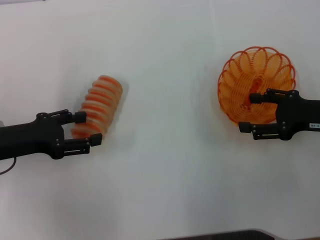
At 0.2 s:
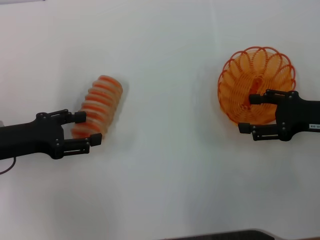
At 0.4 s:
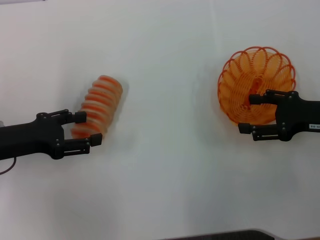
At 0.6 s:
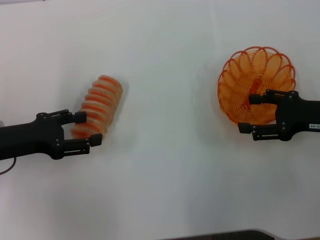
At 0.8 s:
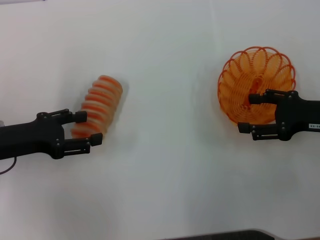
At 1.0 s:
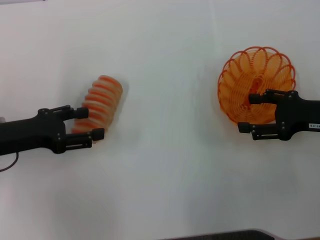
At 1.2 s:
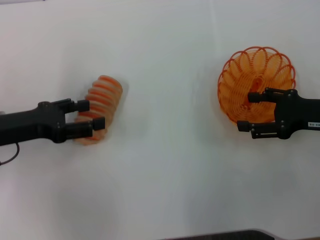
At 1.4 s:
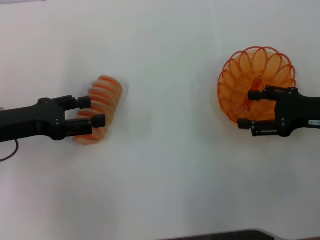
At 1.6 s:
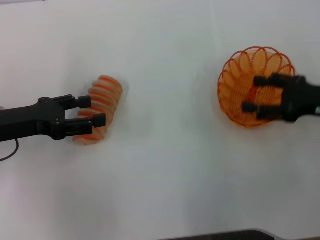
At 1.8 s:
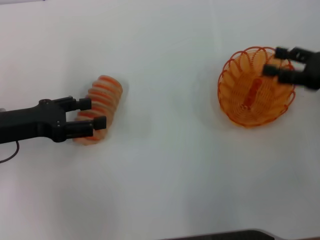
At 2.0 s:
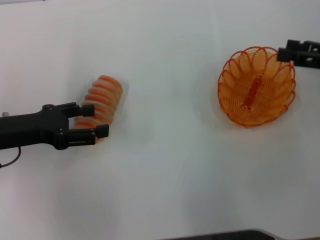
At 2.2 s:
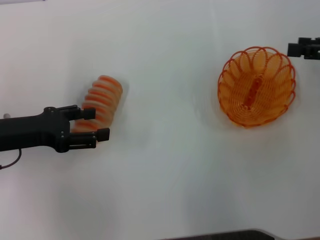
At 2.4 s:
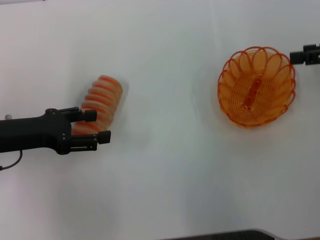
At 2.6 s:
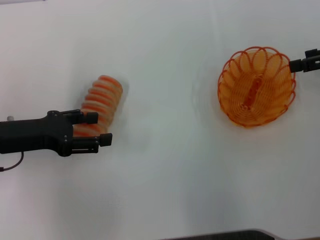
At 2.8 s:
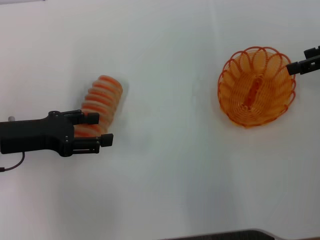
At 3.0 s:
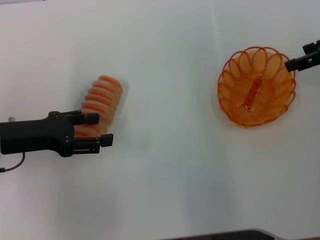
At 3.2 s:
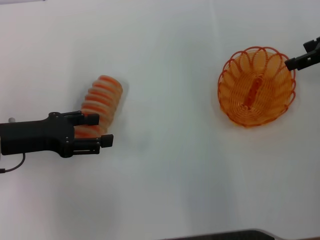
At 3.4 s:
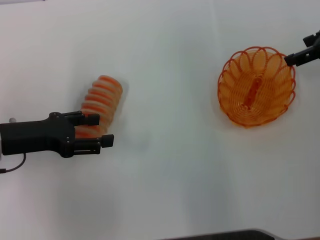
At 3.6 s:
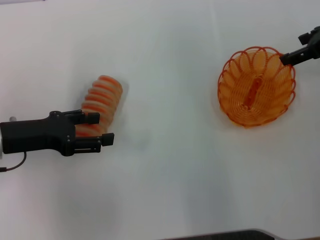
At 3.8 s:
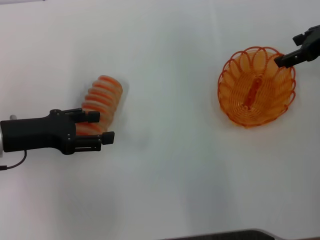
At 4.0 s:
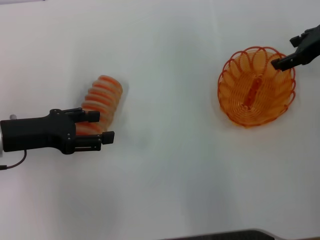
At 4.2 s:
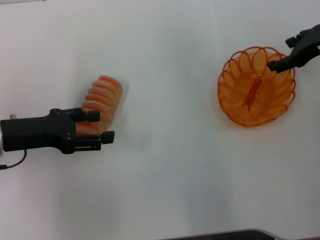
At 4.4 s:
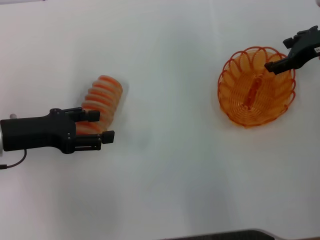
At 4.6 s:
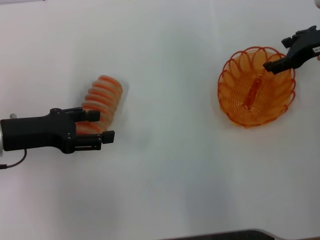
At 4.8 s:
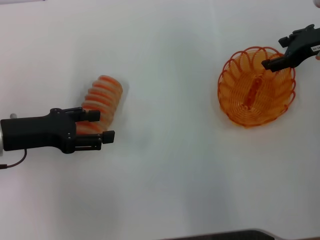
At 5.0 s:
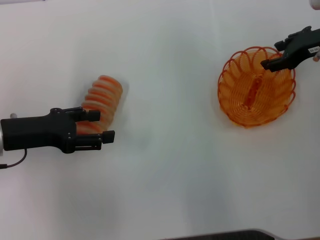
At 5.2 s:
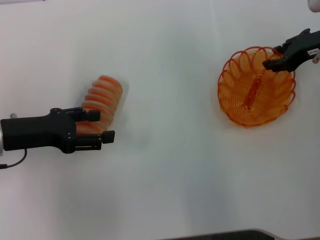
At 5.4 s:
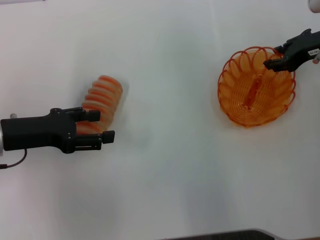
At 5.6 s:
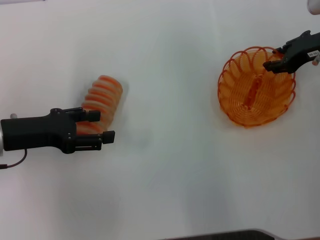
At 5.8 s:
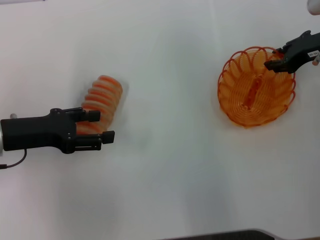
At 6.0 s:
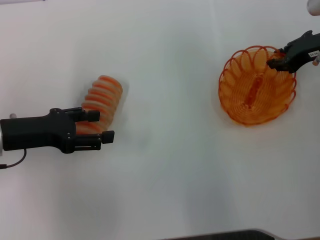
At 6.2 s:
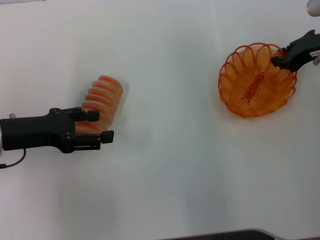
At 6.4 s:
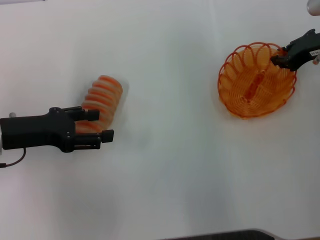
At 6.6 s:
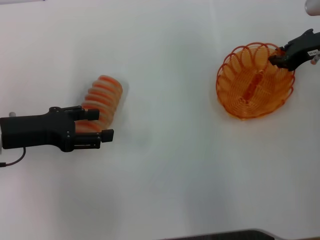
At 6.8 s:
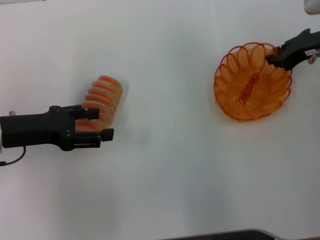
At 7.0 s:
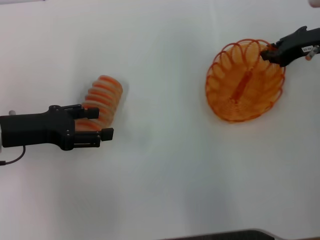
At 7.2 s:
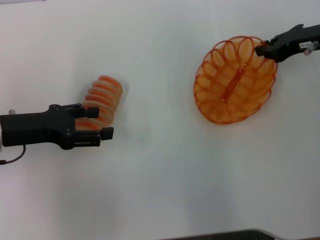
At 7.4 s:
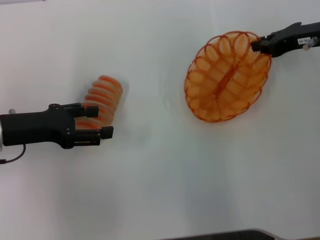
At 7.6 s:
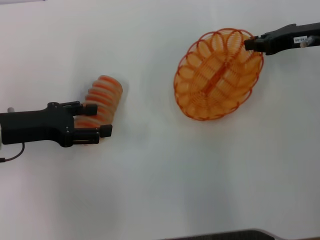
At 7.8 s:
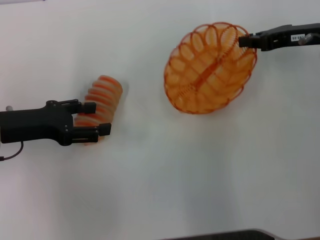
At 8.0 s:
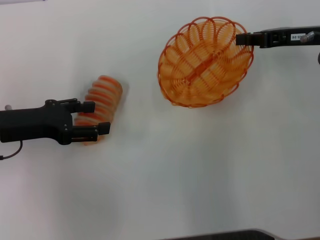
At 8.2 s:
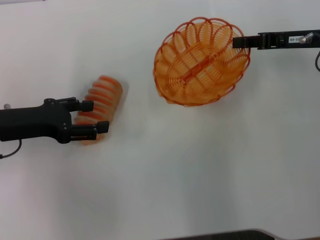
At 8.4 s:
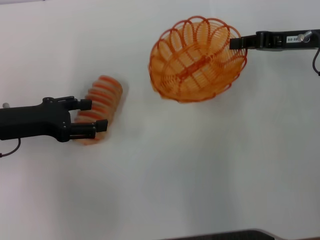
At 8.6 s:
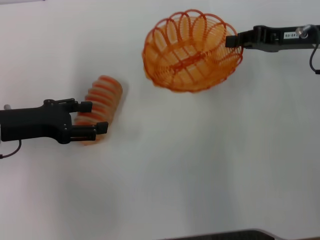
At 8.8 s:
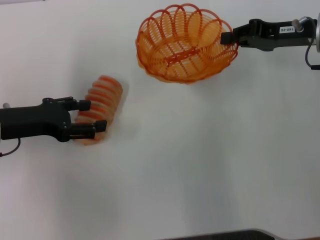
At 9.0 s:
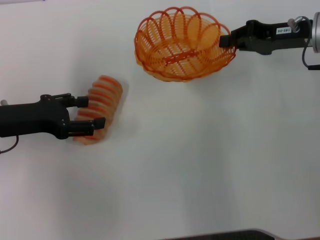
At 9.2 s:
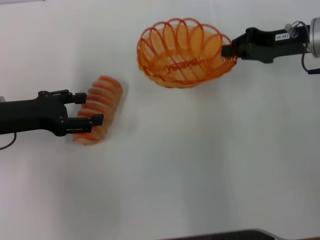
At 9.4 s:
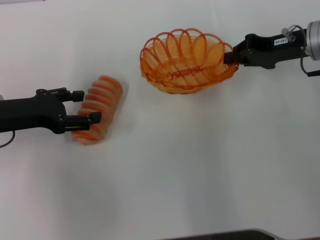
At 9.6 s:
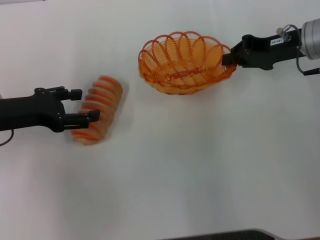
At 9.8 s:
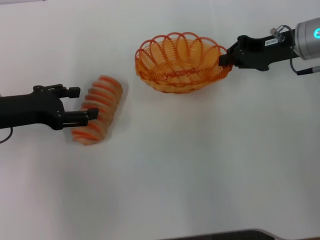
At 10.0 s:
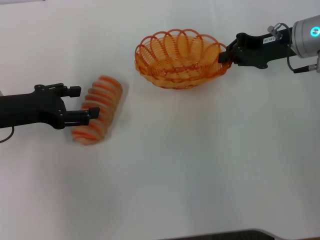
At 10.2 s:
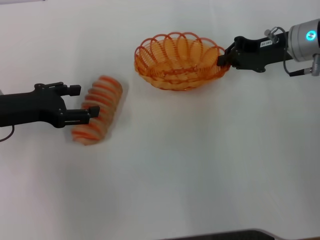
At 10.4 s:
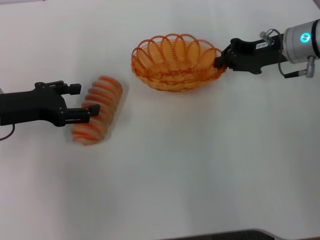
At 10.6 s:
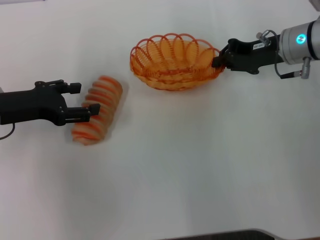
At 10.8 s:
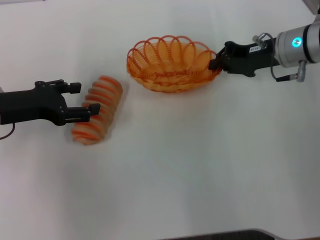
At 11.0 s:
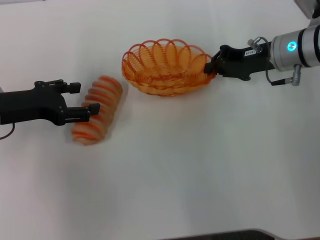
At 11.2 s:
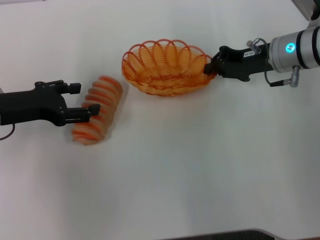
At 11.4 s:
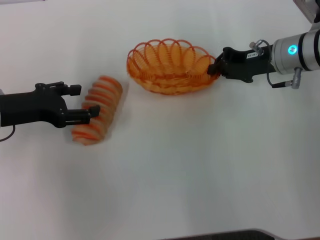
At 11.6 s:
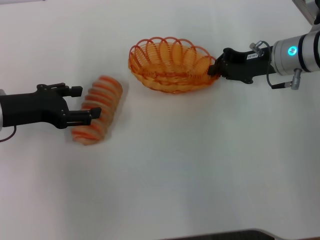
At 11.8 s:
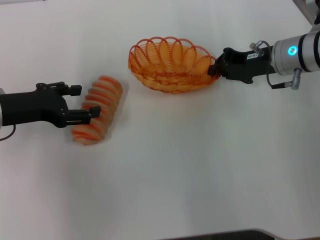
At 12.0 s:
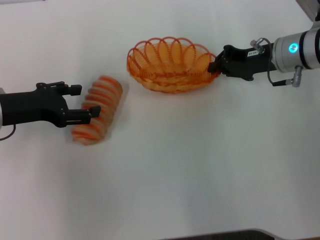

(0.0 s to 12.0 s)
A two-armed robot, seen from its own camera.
Step, 0.0 s - 7.0 s: Pick up the basket with the right gripper.
0.0 s - 1.6 s: The grippers move only a little.
1.6 s - 3.0 s: The right gripper is displaced upward and forward by about 15 cm.
3.0 s - 4.4 s: The right gripper ends up some 5 cm from where it was.
4.4 s - 6.0 s: The right gripper closes up.
6.0 s - 7.6 s: The right gripper closes up.
9.0 s - 10.4 s: The grippers move only a little.
10.4 s - 12.0 s: The grippers make only small movements.

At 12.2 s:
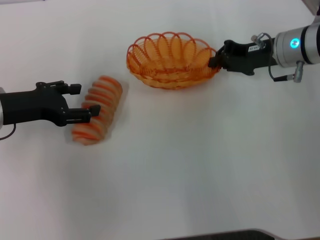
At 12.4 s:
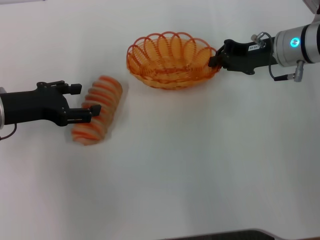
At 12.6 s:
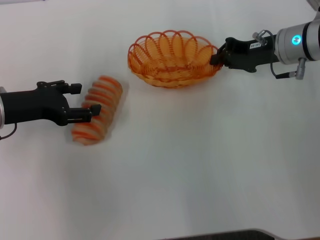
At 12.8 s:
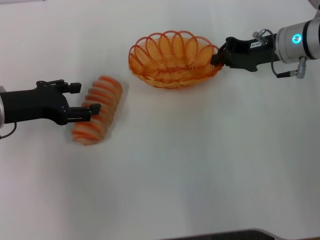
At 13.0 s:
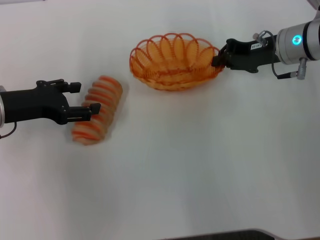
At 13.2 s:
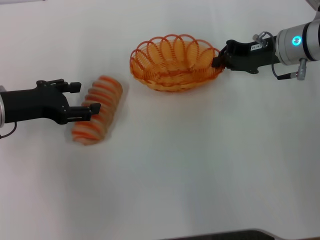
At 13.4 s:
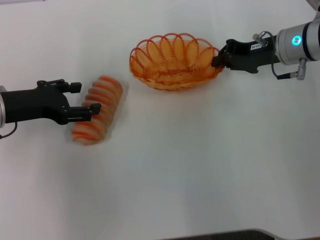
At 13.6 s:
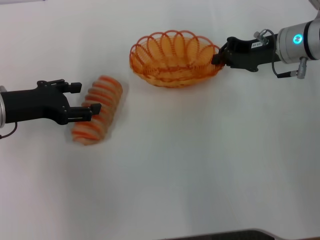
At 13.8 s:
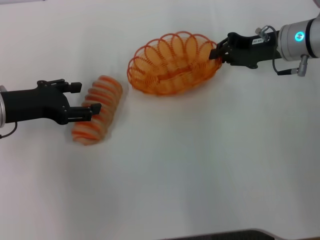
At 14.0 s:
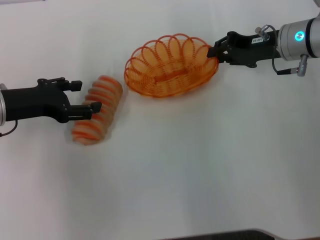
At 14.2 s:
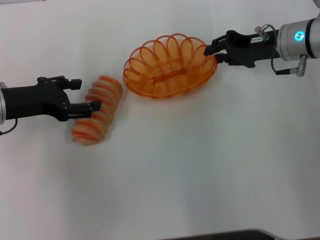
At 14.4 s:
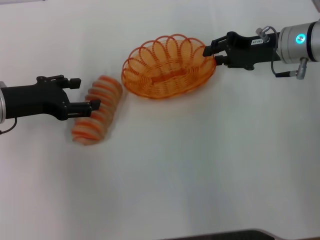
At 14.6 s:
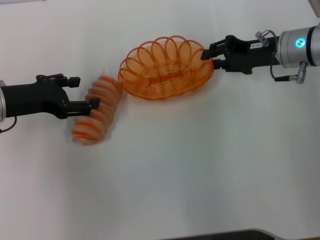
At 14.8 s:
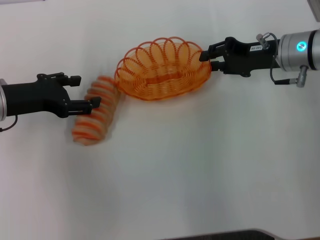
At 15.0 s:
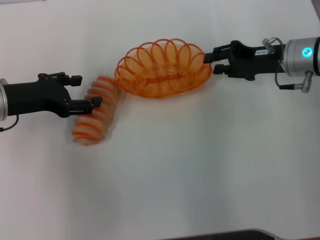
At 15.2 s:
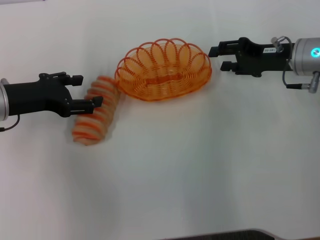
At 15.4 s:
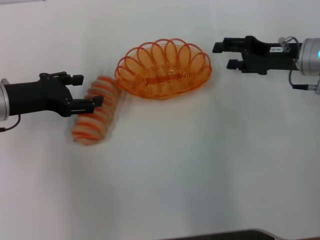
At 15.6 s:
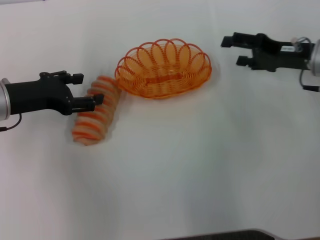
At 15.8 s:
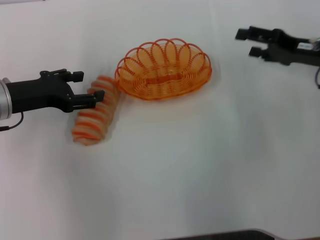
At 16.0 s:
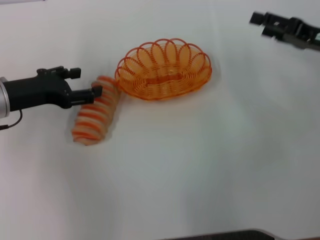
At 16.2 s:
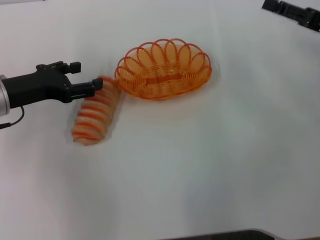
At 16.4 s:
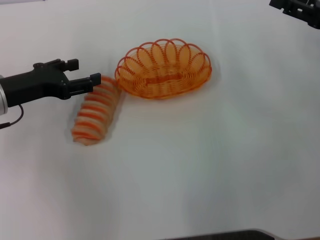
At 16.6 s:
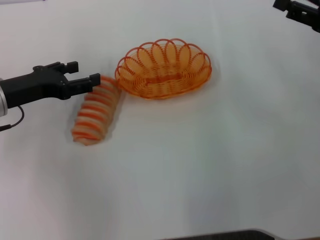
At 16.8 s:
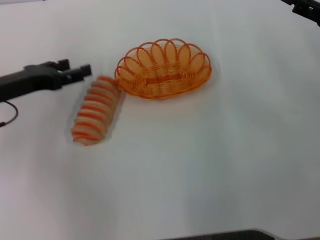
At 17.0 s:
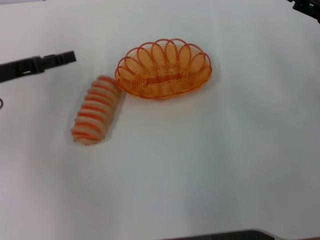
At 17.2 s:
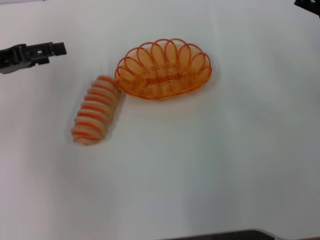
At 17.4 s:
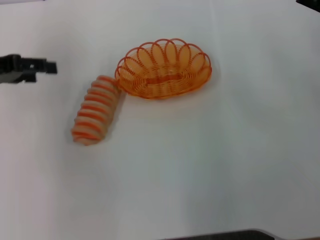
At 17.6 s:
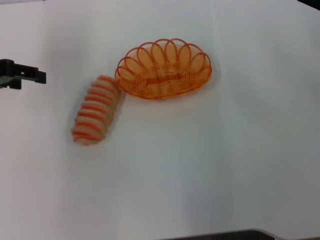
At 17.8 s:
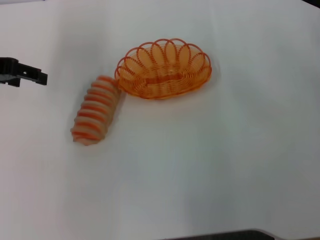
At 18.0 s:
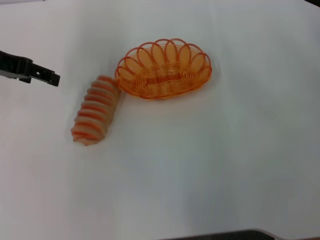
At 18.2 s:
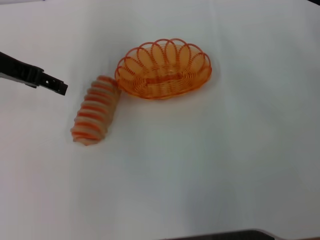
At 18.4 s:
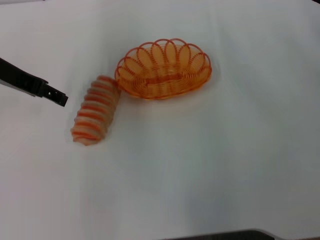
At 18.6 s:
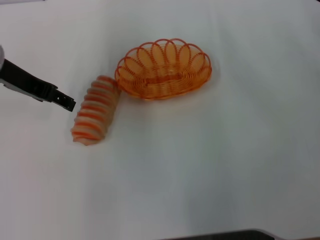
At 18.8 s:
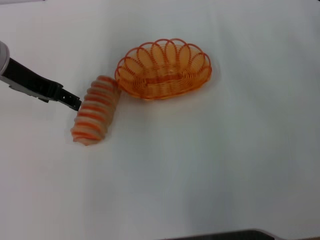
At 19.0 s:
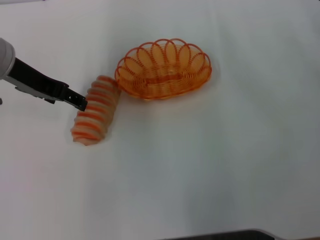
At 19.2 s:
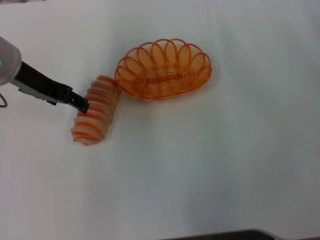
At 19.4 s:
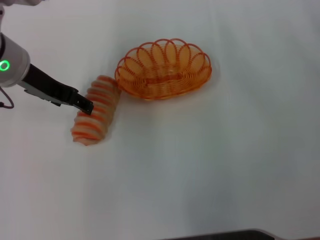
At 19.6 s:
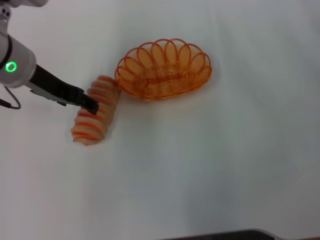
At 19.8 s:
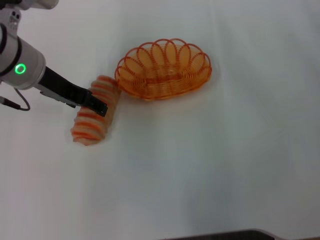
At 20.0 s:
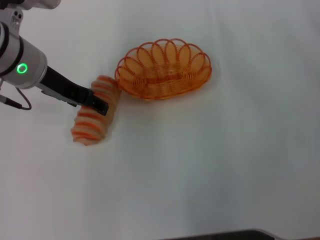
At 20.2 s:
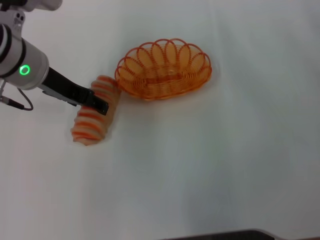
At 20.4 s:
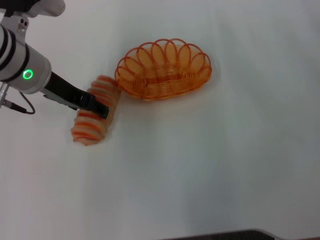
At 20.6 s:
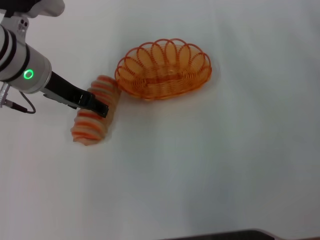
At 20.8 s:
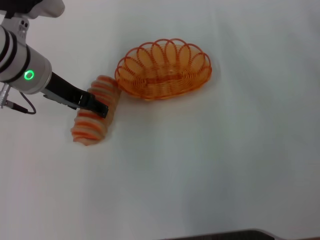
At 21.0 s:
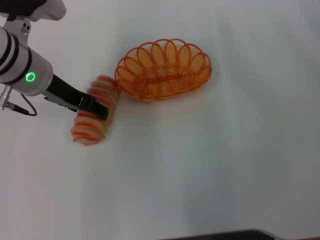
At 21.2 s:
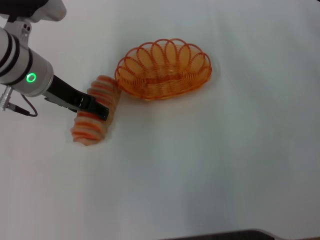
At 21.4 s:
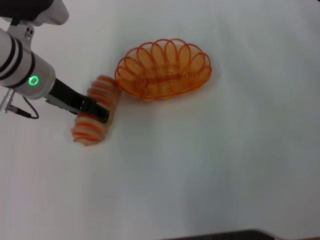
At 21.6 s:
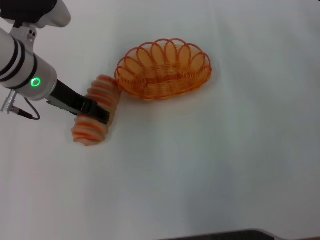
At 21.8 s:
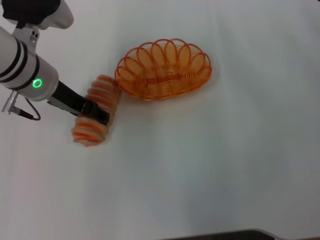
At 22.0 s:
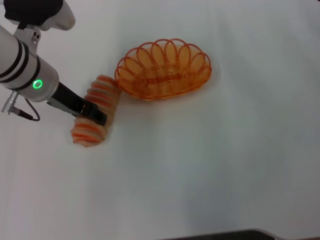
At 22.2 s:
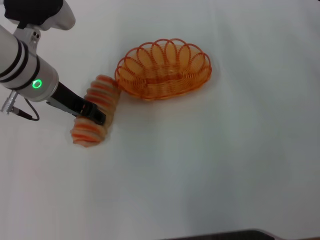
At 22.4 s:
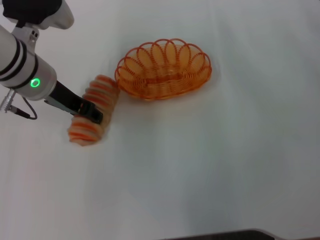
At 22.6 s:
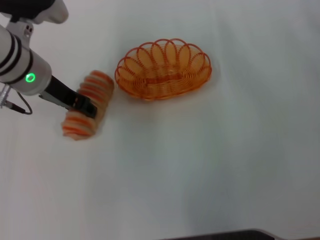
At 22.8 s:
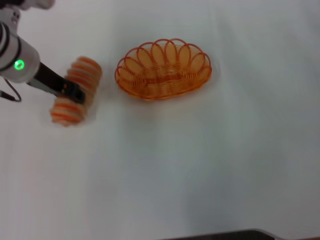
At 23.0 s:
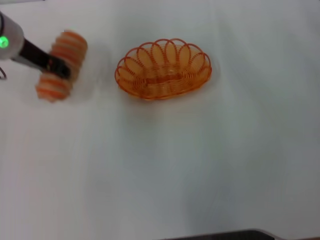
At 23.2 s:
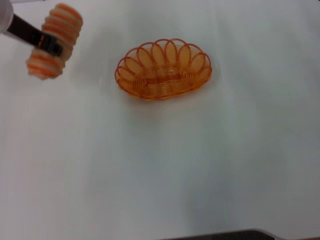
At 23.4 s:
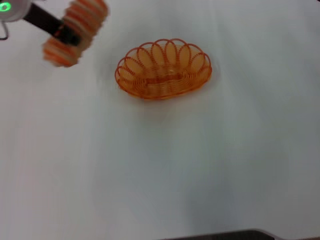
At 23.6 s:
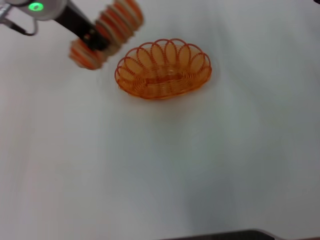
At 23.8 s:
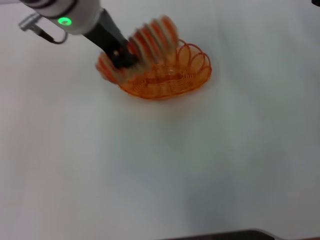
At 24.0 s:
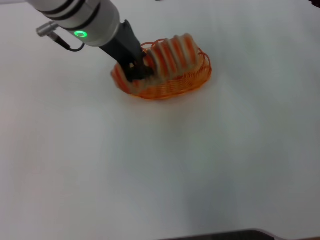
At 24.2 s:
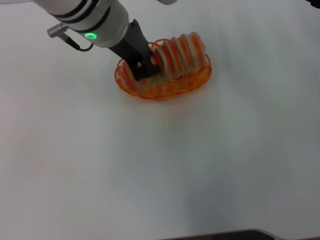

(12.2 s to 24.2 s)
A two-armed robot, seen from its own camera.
Step, 12.2 s - 15.0 s: Place the basket in the center of view with the right gripper.
Step, 15.2 s - 22.4 s: Pick up the long bread with the left gripper.
12.2 s - 13.8 s: Neither gripper changes place.
13.8 s - 15.2 s: The grippers make only small movements.
15.2 s - 16.6 s: The right gripper shifts roughly 10 cm to the right and backward, and opens.
16.6 s - 18.2 s: The left gripper moves upward, roughly 10 cm.
18.2 s - 19.8 s: The left gripper travels to the right by approximately 5 cm.
19.8 s - 21.2 s: The grippers stay close to where they were, moving slightly.
21.2 s - 22.6 s: The two grippers keep their place.
22.6 s - 24.2 s: The left gripper is displaced to the right and upward by roughly 15 cm, and closes its fingers.
